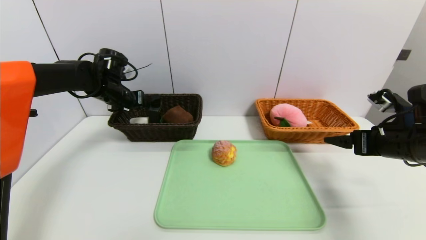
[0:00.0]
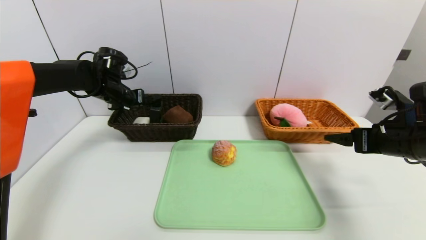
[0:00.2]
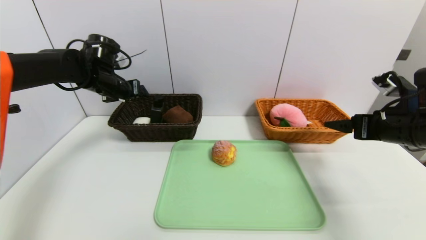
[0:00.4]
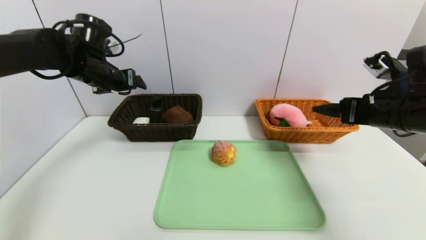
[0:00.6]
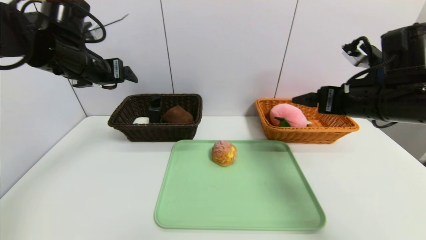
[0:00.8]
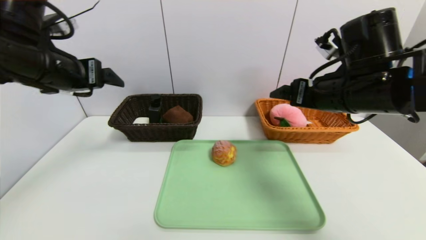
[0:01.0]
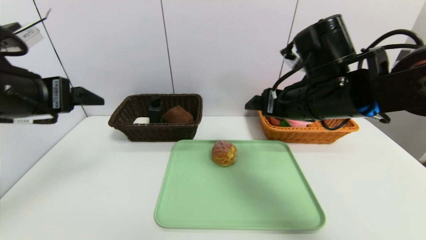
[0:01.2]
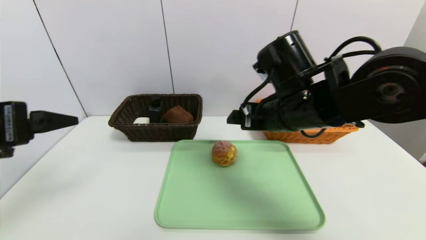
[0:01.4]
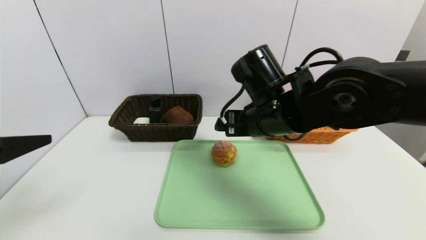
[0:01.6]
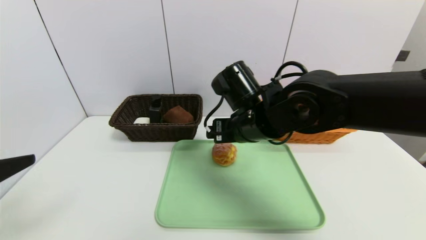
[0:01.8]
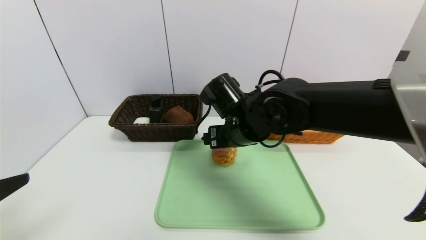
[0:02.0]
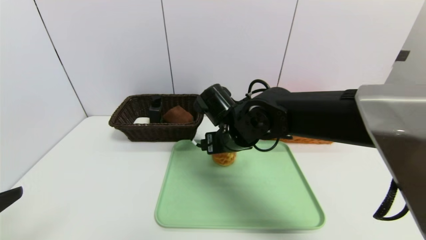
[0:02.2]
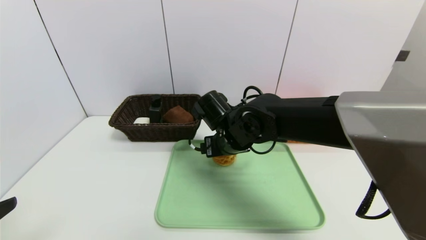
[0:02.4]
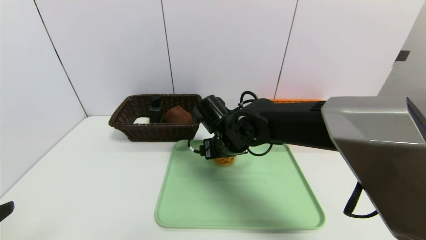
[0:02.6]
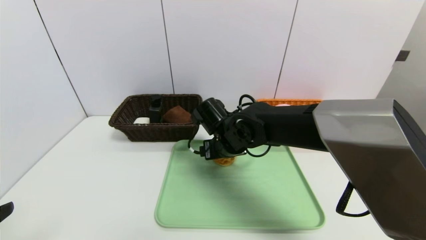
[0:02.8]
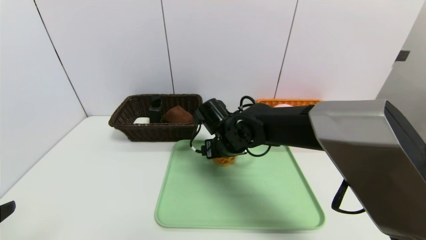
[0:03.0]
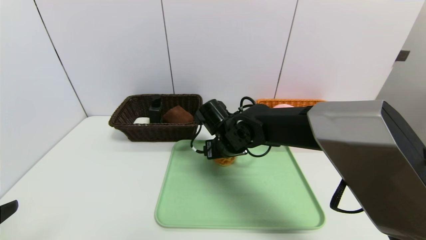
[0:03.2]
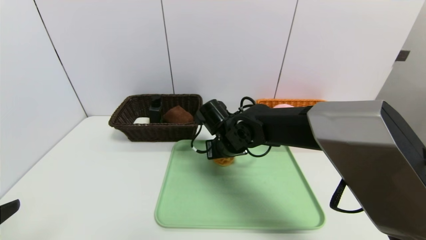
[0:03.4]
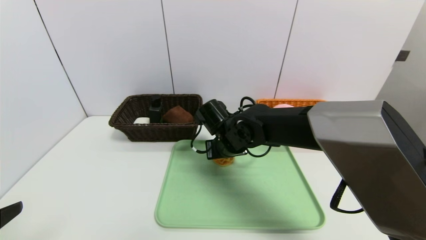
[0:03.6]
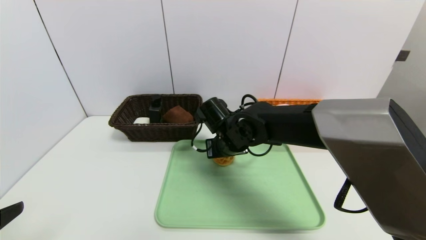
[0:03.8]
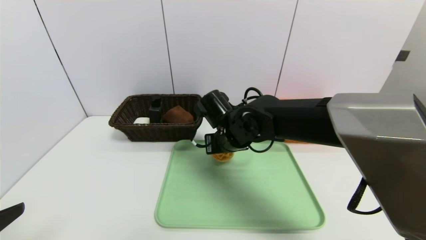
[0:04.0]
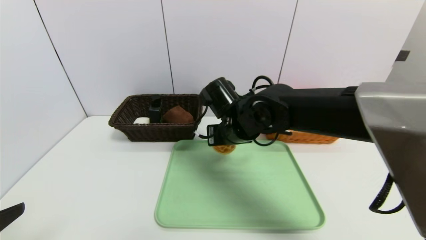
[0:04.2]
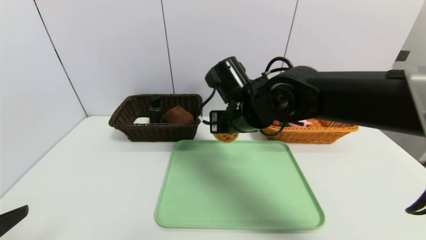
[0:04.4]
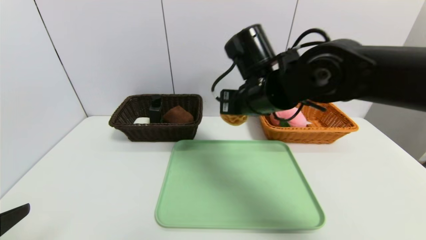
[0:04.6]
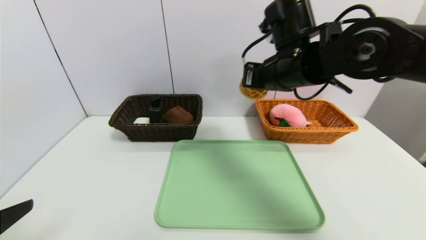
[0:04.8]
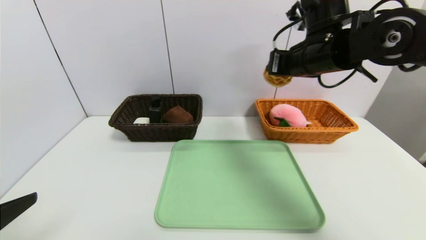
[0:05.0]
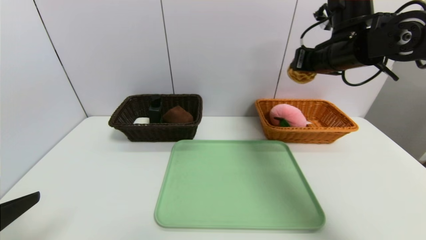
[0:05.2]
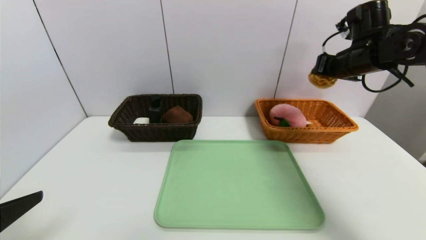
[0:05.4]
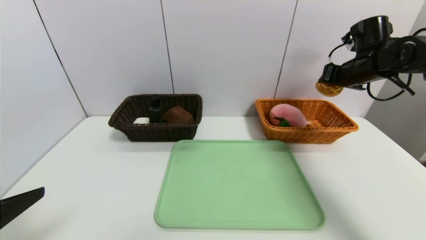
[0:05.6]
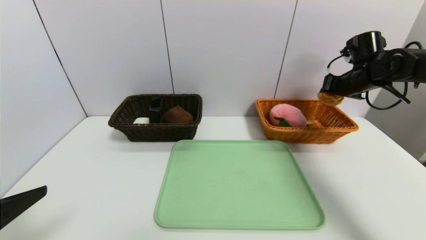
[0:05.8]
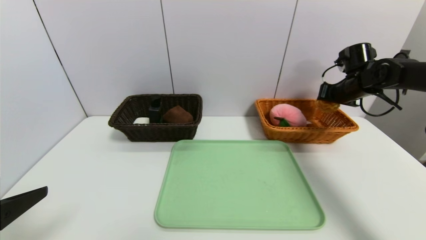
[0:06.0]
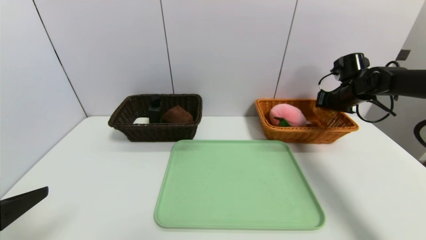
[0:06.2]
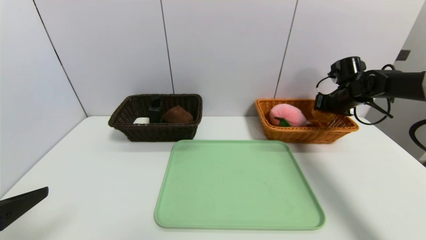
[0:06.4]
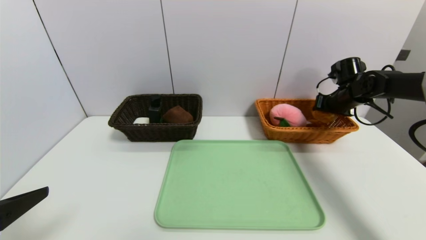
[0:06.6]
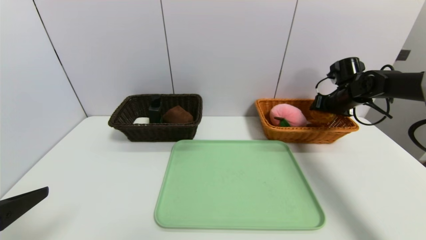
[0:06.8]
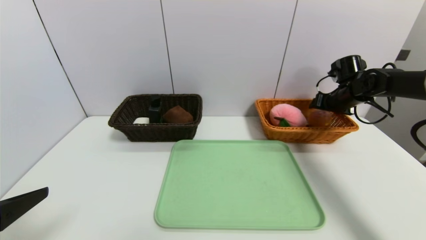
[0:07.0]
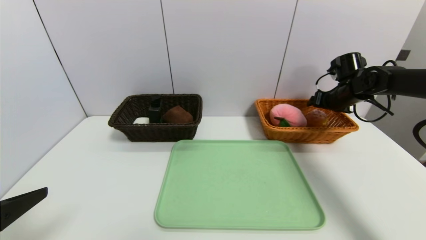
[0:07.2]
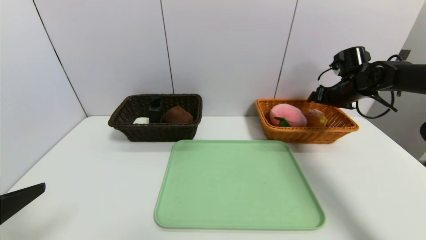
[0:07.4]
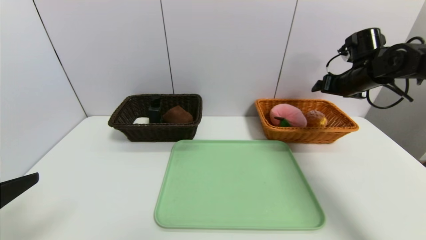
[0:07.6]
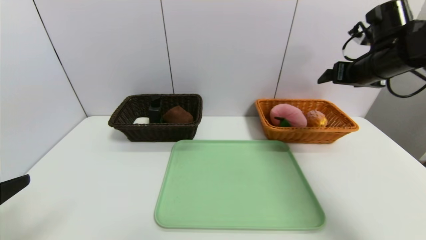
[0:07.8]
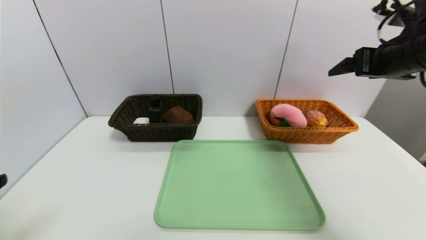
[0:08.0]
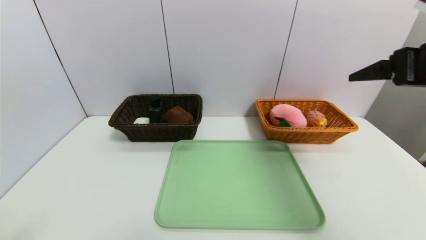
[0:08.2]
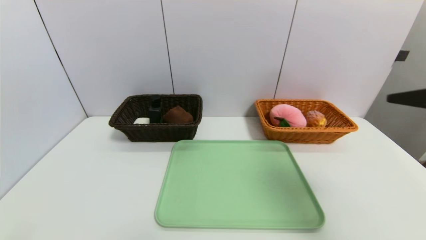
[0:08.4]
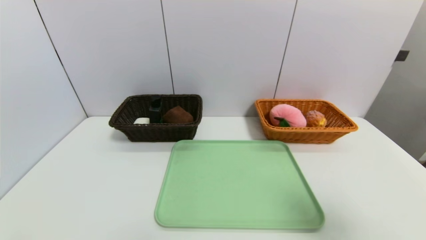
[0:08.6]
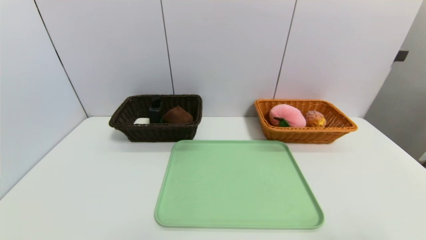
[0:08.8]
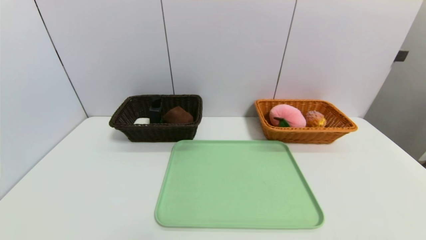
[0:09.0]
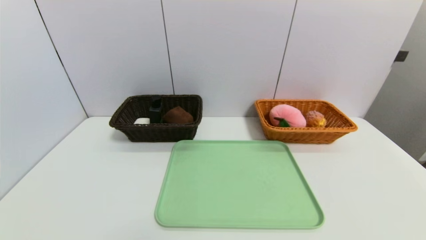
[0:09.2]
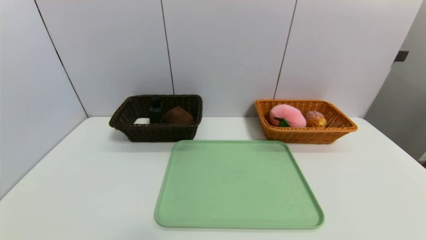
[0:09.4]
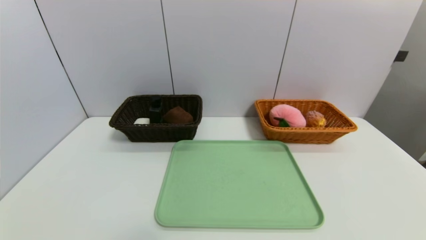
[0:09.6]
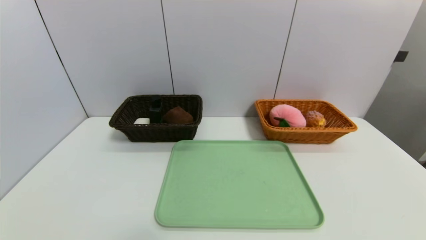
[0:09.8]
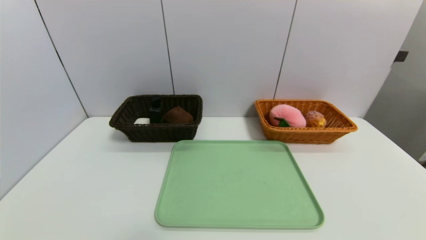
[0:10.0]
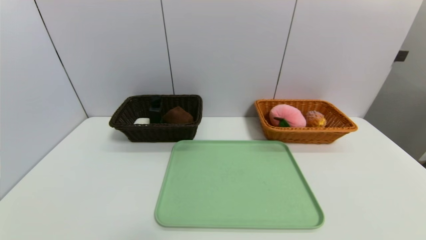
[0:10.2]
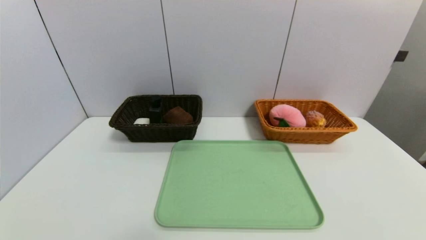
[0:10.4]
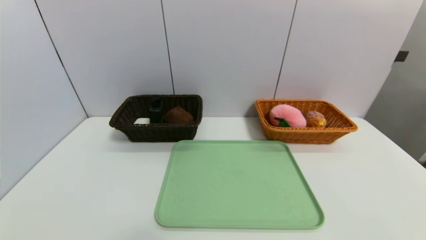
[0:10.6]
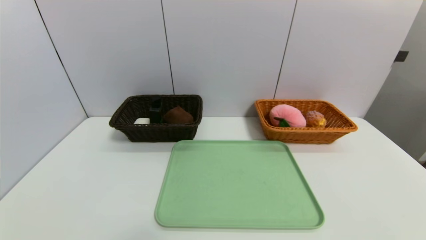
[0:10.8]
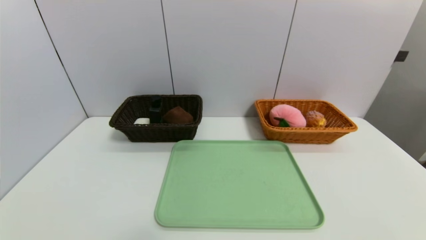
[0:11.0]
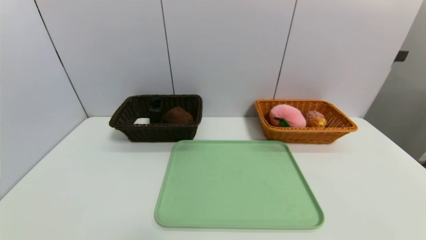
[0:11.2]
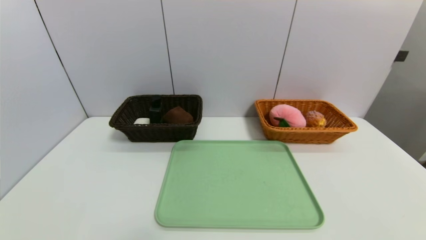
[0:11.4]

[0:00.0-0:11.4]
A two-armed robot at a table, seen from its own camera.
Task of the whole recording: place the food in the right basket with the right gripper, and place the non food items in the left basket with the left gripper.
Step, 0:00.4 to 0:07.8: Grasp the round bread and put it in the right basket.
0:00.0 to 0:01.4: The right gripper travels to the left by roughly 20 cm. Meanwhile the left gripper shifts some 30 cm backward.
0:01.4 to 0:02.8: The right gripper heads downward, to the left and forward, covering some 15 cm. The left gripper goes some 15 cm backward and downward.
0:02.8 to 0:04.2: The right gripper closes its fingers.
0:04.2 to 0:05.6: The right gripper travels to the right by some 30 cm.
0:05.6 to 0:07.2: The right gripper is displaced downward by approximately 10 cm, and opens up.
0:07.2 to 0:08.6: The right gripper moves backward, roughly 40 cm; the left gripper is displaced backward by approximately 10 cm.
0:08.6 to 0:10.0: The right gripper is displaced downward and backward by roughly 20 cm.

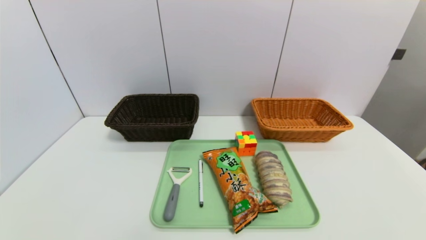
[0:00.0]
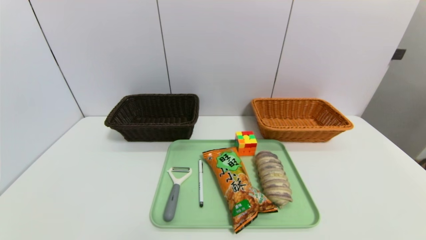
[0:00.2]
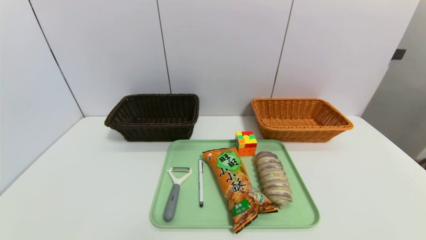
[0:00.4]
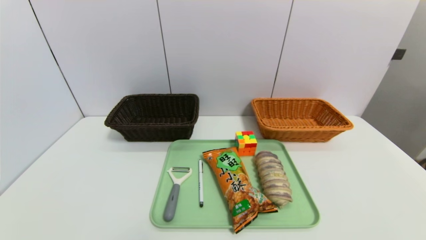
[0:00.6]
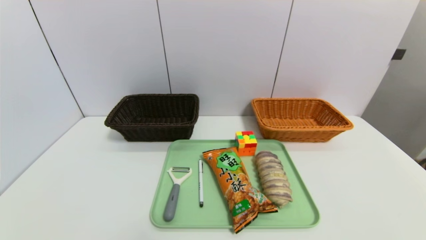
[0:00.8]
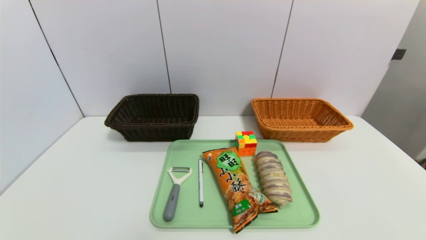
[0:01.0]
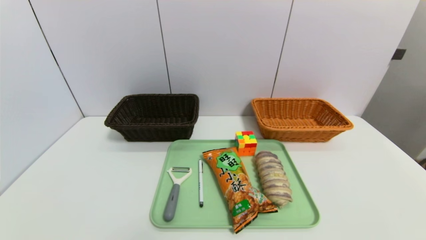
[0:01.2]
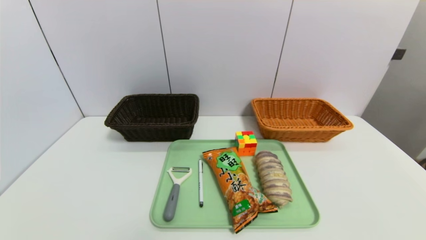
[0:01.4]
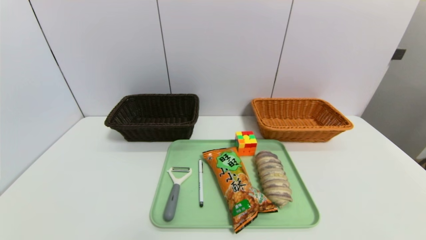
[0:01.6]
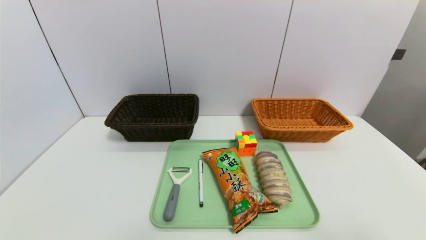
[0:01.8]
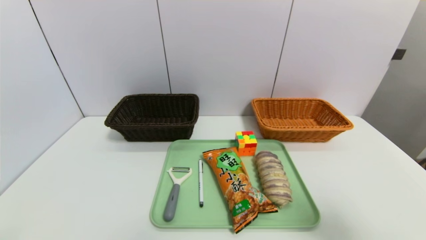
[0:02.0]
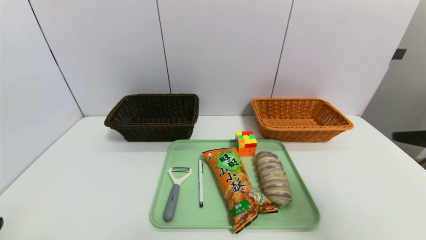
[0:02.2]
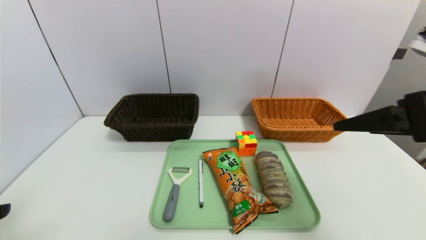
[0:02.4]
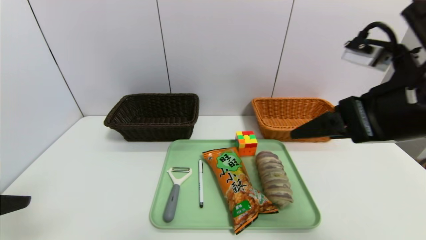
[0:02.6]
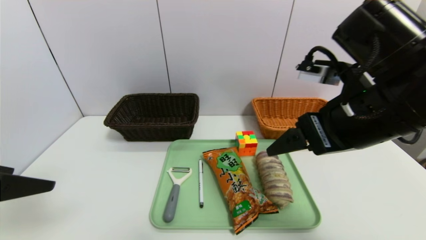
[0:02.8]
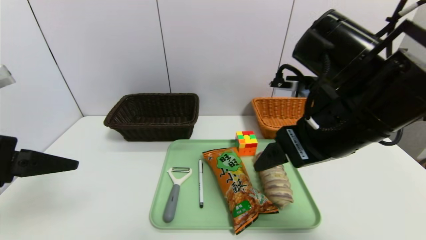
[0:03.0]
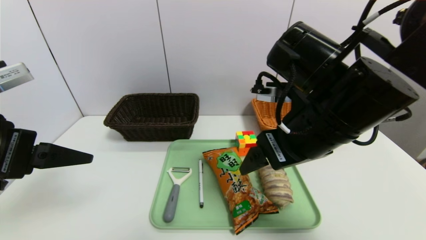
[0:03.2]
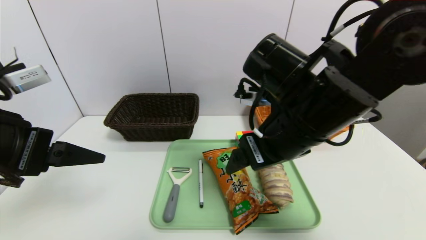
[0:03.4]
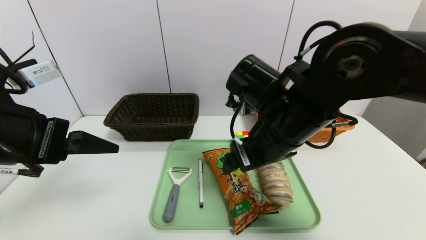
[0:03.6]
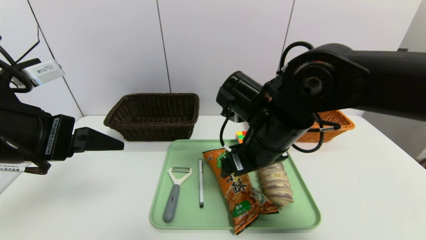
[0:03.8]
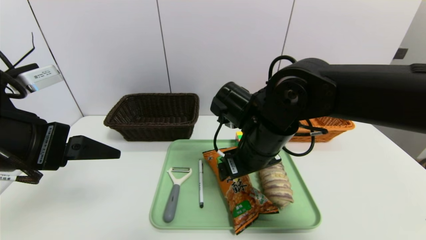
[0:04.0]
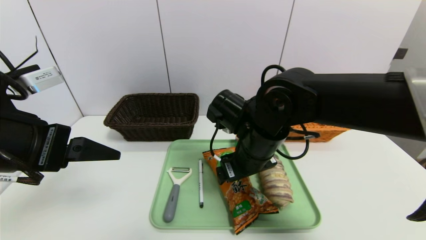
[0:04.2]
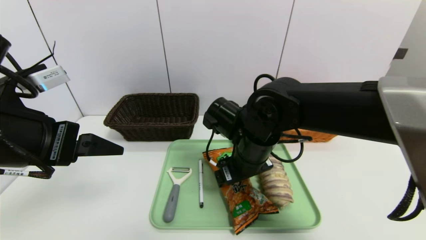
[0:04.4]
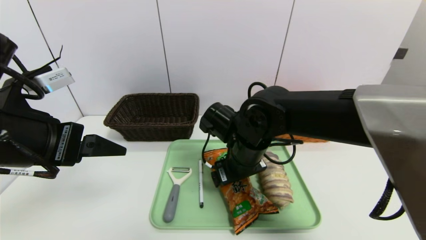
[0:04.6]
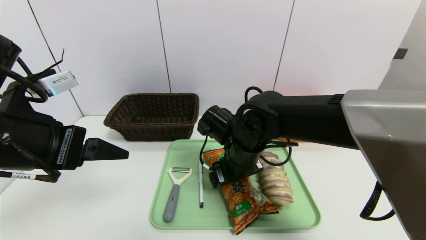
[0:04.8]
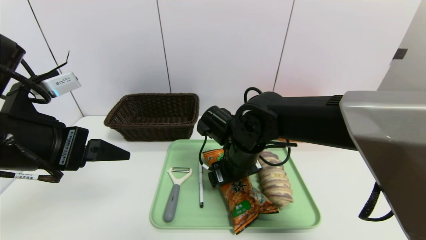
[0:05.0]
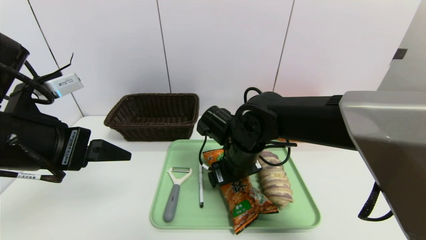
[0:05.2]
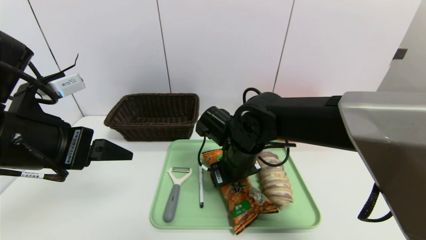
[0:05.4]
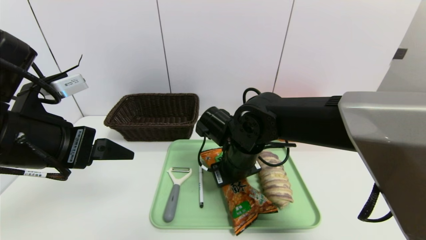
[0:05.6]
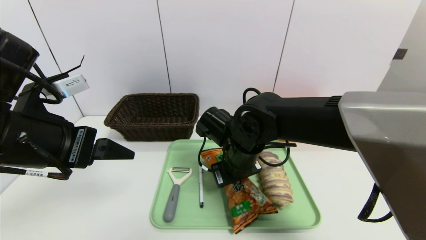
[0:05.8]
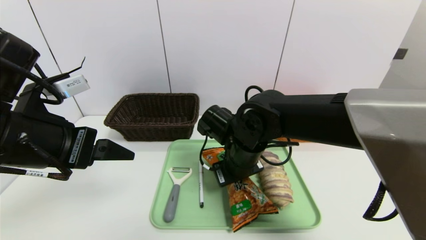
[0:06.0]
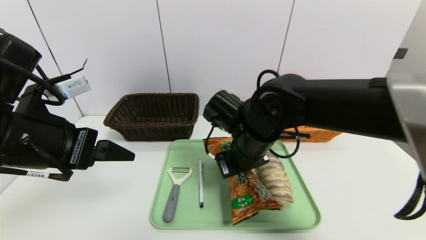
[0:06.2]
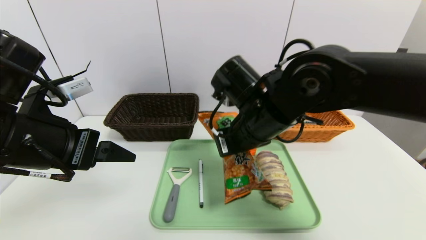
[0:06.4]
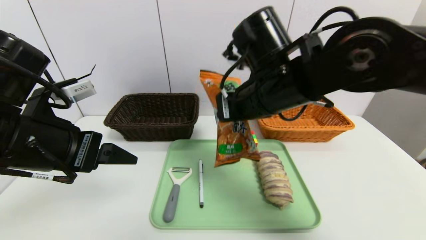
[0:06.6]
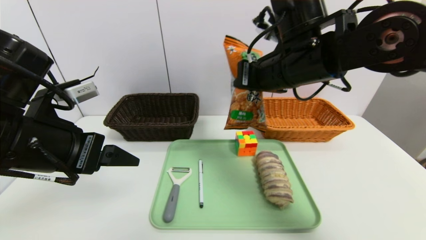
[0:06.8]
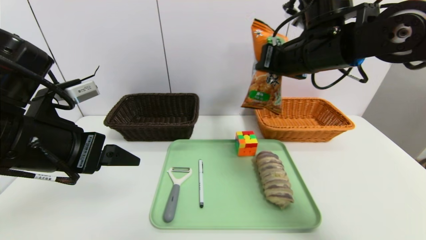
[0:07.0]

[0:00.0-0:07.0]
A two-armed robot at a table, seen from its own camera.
Task of the whole recording: place the food in the right basket with the right gripper, and place the non food items in the left basket with the left gripper.
0:01.4 to 0:02.8: The right gripper moves forward, upward and to the left, about 35 cm, while the left gripper shifts roughly 25 cm upward and forward.
0:02.8 to 0:04.2: The left gripper goes some 5 cm forward. Meanwhile the right gripper moves to the left, downward and forward, about 15 cm.
0:04.2 to 0:05.6: The right gripper moves some 5 cm, and closes up.
0:05.6 to 0:07.0: The right gripper moves upward and to the right, approximately 20 cm, and closes.
